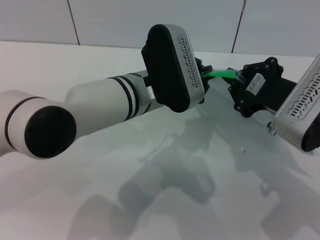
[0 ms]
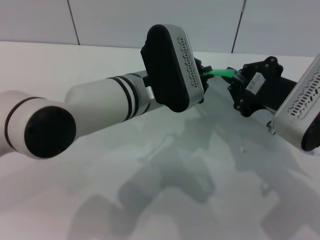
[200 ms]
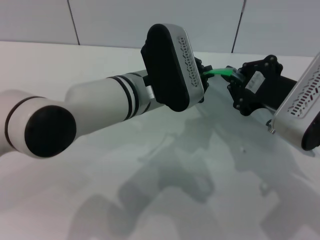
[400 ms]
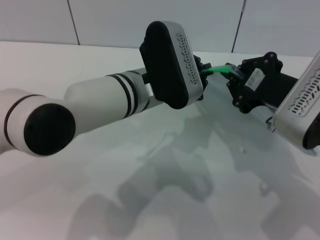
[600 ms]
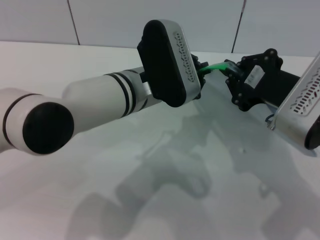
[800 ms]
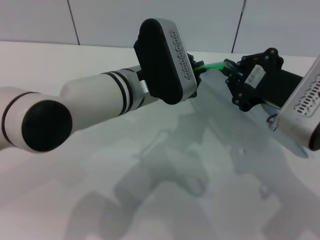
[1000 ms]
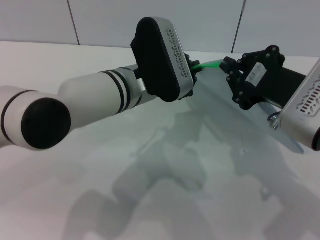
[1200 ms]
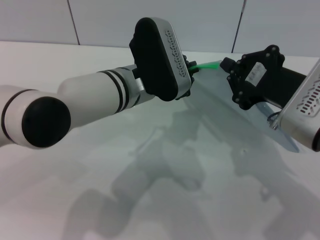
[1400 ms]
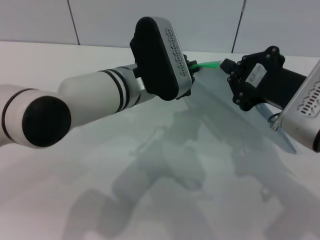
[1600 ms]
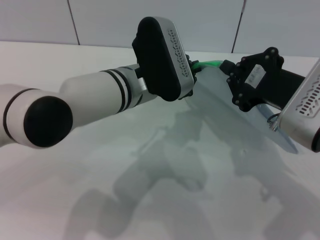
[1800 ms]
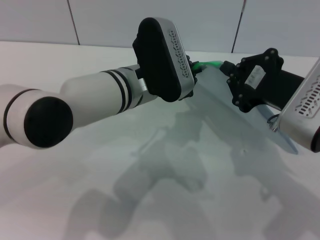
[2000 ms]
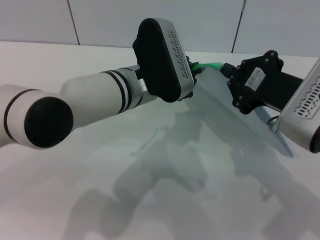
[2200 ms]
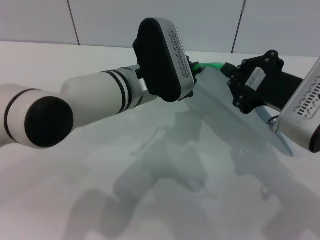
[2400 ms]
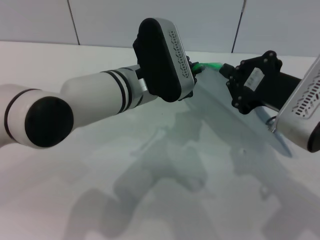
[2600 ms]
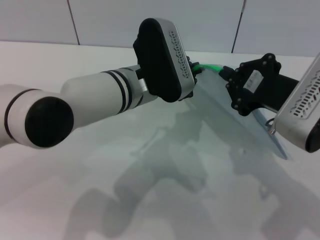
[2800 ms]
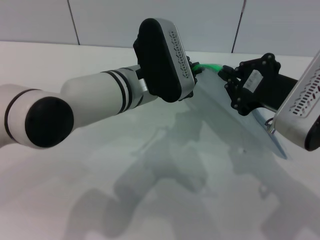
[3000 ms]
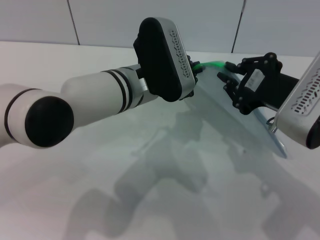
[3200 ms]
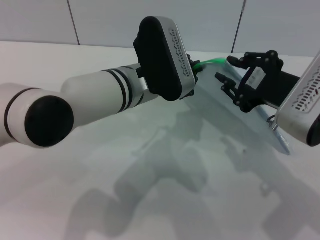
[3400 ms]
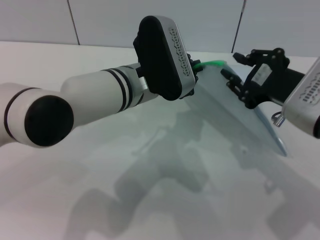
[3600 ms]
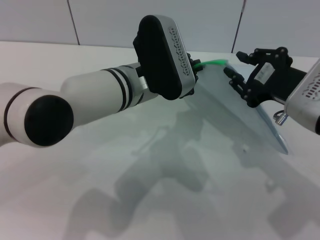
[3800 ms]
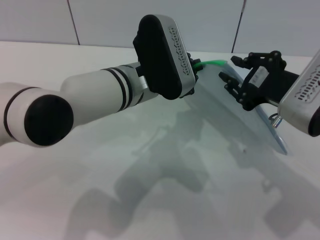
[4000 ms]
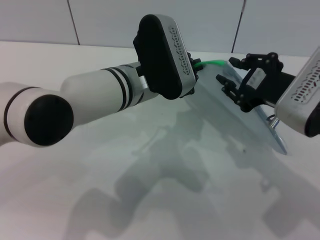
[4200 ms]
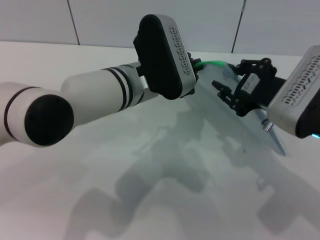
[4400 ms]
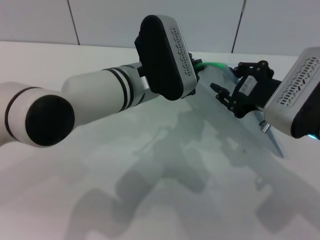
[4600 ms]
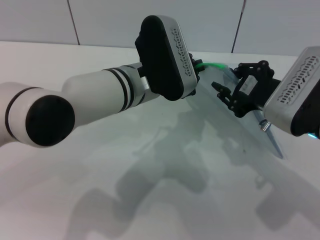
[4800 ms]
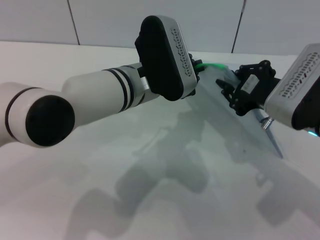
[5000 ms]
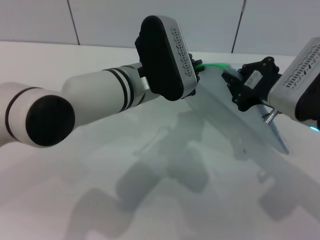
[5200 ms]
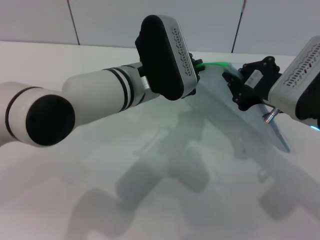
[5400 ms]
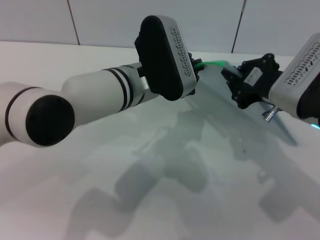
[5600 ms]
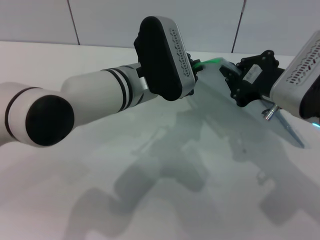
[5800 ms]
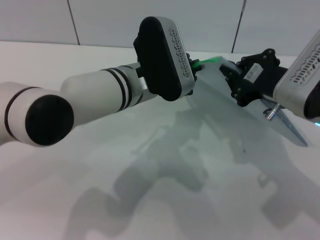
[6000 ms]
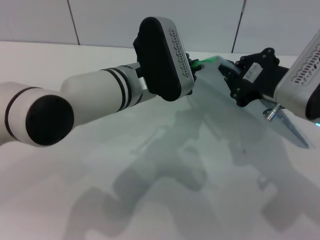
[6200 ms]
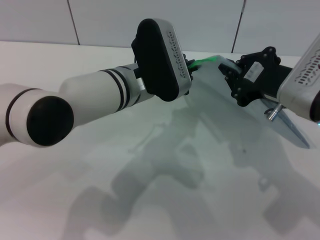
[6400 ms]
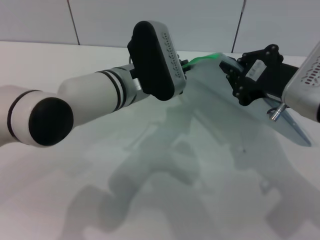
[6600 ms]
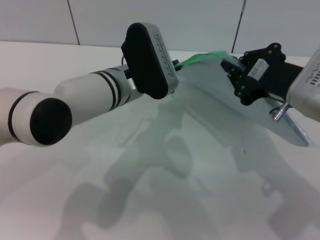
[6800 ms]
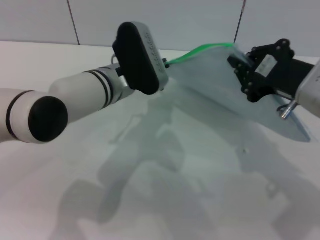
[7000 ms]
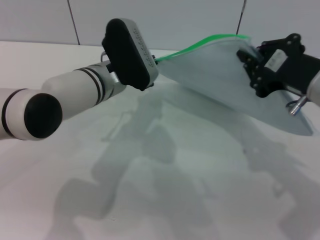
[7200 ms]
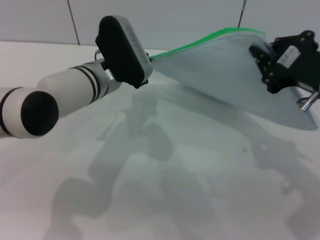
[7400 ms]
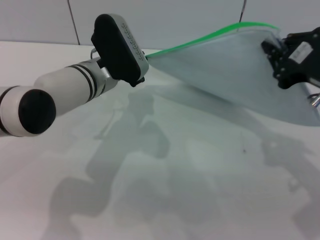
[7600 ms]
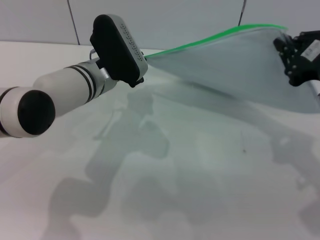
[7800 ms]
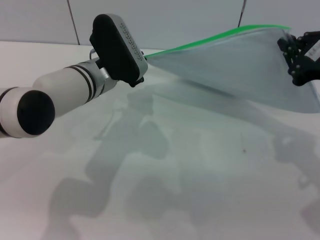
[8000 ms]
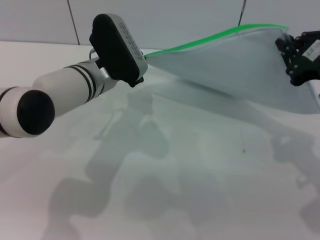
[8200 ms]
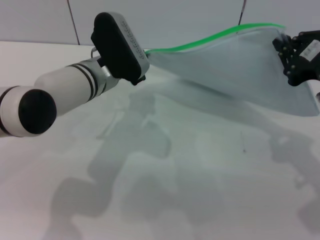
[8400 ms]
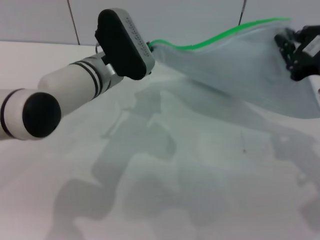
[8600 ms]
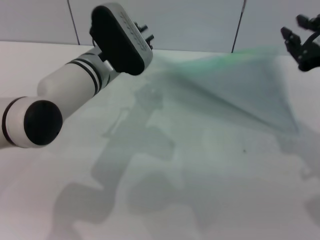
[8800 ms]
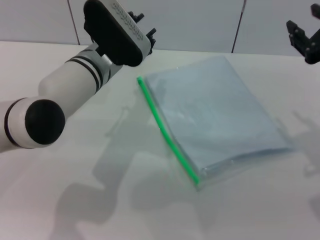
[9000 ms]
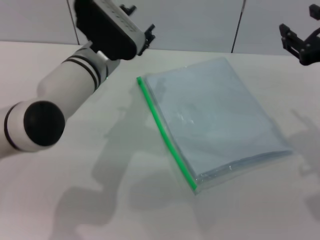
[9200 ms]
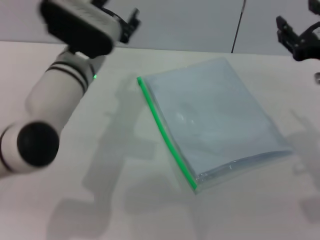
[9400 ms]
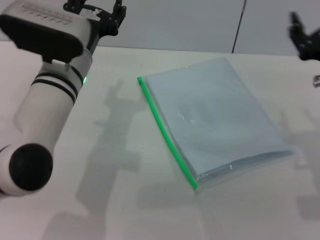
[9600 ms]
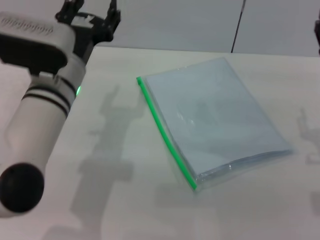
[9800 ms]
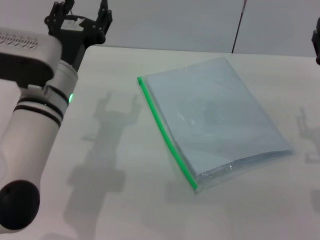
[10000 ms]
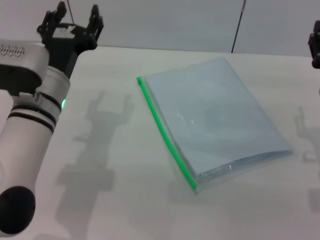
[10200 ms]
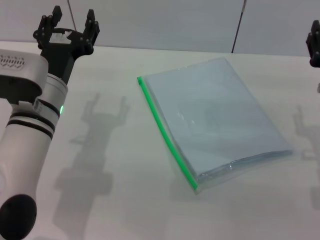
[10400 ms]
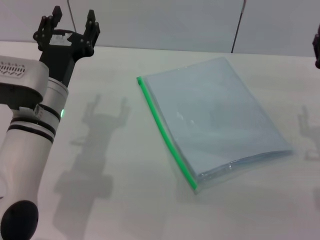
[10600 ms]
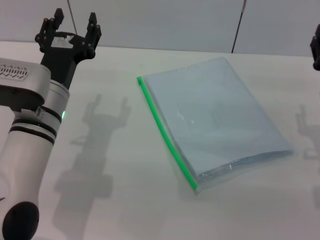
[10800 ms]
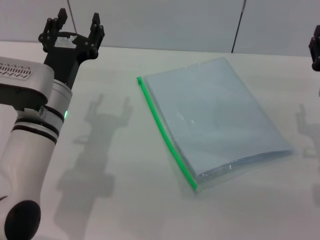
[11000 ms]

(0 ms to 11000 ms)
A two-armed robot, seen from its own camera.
Step, 0 ms - 8600 ms: Pulling up the zipper on the transparent plastic bag with the left gripper to close it.
Step, 8800 ms - 9800 ms: Place the transparent plastic bag.
0 ms - 1600 ms: The grippers stay close to where they were, moving slightly.
1600 ms - 3200 ms: Both grippers stay put.
3200 ms - 4800 ms: The right gripper opens.
4800 ms - 6200 ms: The right gripper closes its fingers.
6200 ms - 7800 ms: The left gripper shifts about 5 cm to the left; the right gripper moves to the right, about 5 cm.
7800 ms - 9400 ms: The right gripper opens its fingers. The left gripper opens.
9400 ms - 11000 ms: The left gripper goes about 5 cm backward, while the right gripper shifts some 10 cm downward.

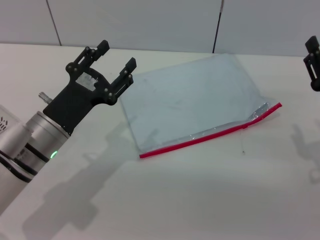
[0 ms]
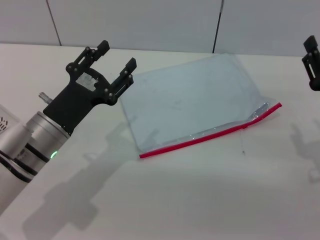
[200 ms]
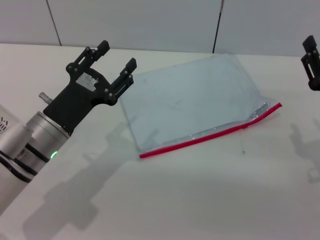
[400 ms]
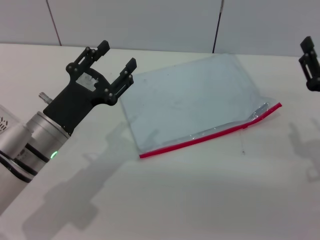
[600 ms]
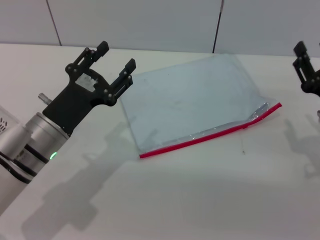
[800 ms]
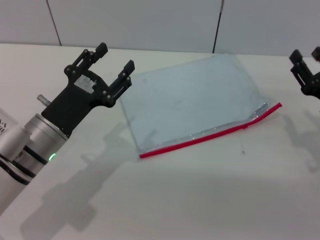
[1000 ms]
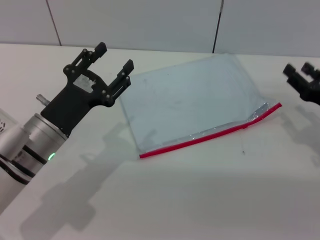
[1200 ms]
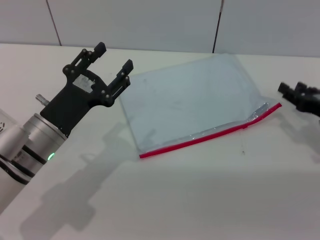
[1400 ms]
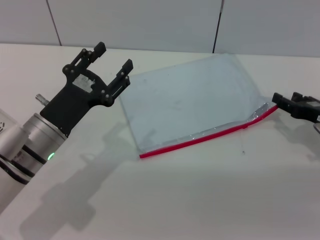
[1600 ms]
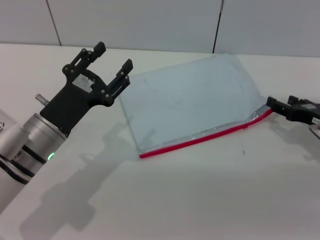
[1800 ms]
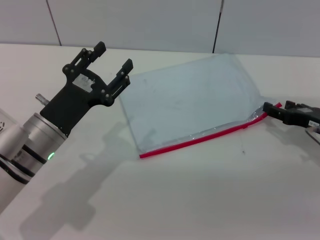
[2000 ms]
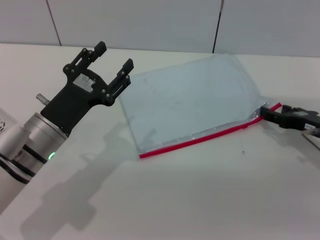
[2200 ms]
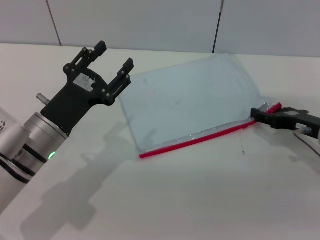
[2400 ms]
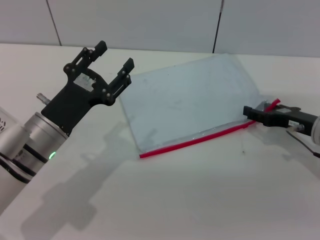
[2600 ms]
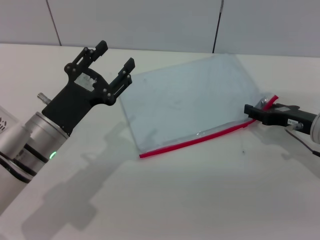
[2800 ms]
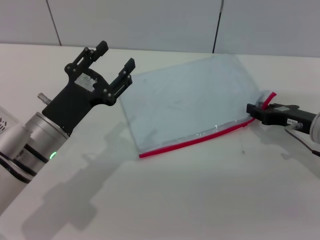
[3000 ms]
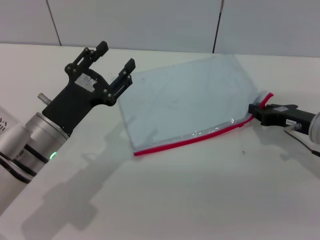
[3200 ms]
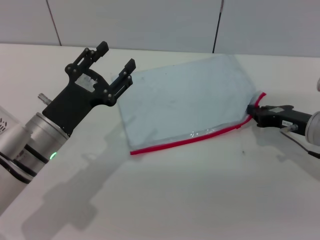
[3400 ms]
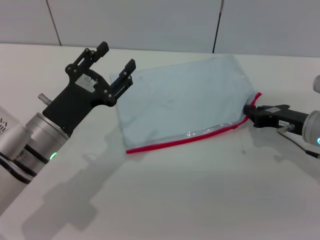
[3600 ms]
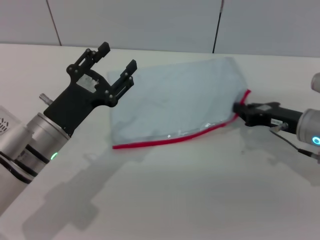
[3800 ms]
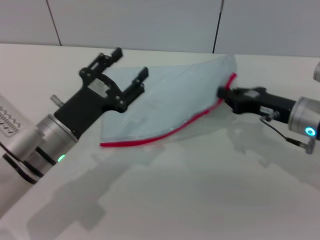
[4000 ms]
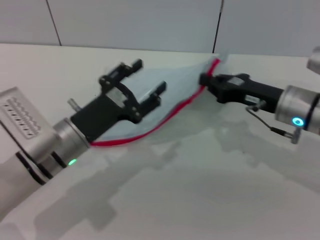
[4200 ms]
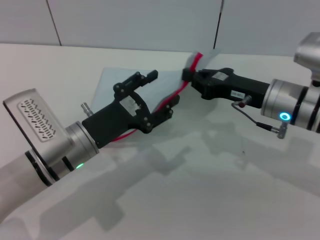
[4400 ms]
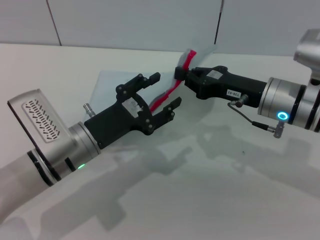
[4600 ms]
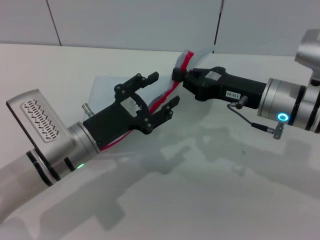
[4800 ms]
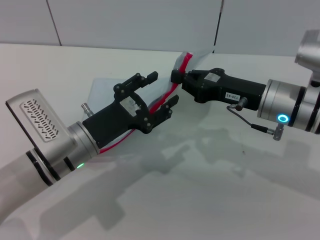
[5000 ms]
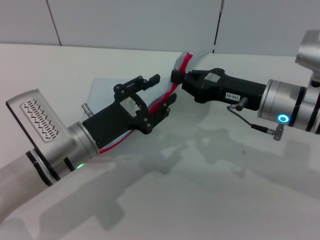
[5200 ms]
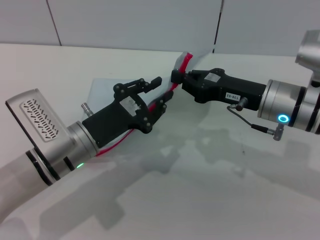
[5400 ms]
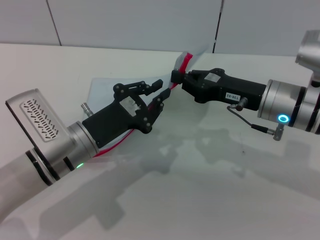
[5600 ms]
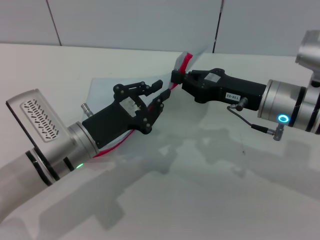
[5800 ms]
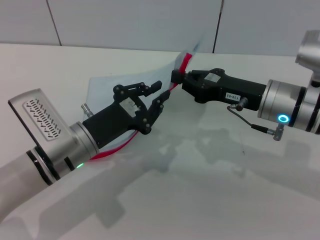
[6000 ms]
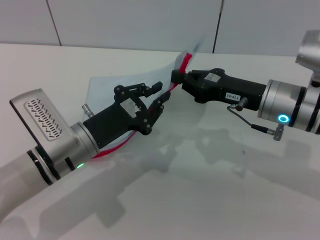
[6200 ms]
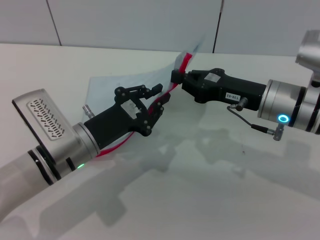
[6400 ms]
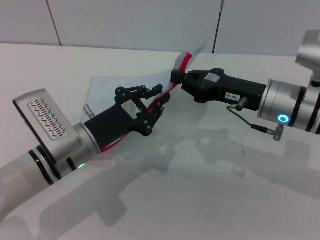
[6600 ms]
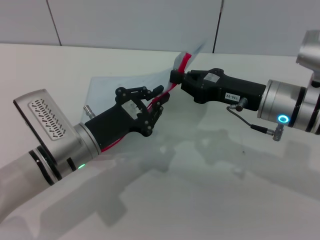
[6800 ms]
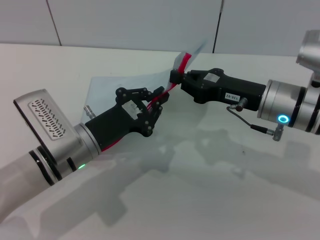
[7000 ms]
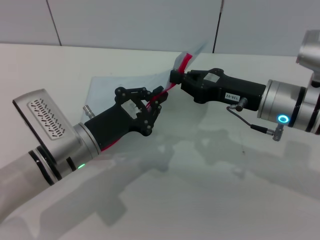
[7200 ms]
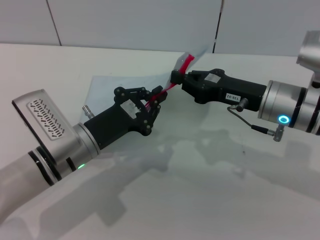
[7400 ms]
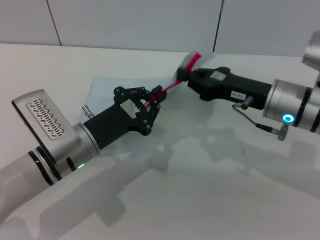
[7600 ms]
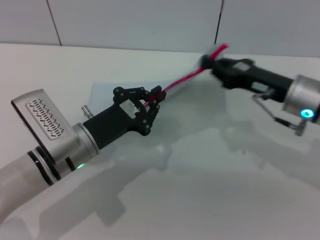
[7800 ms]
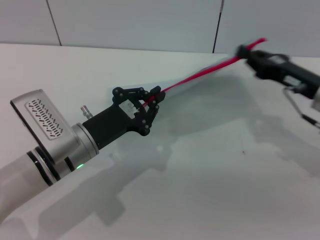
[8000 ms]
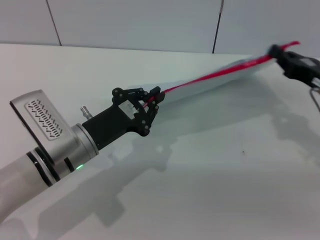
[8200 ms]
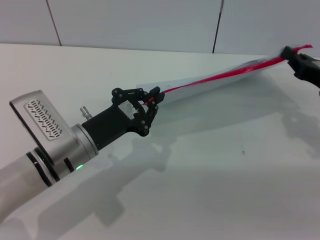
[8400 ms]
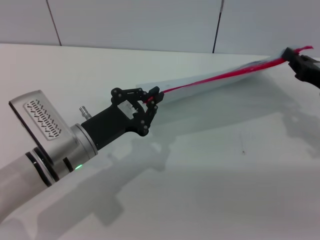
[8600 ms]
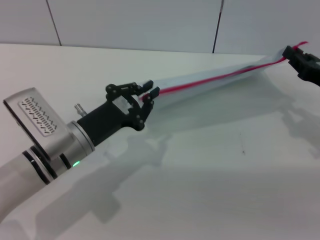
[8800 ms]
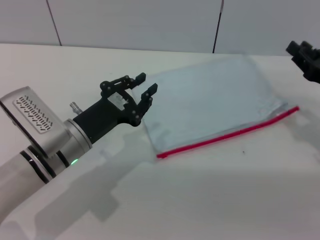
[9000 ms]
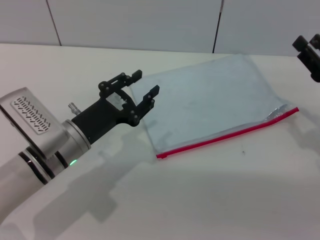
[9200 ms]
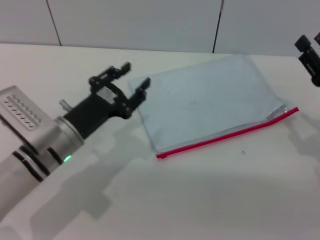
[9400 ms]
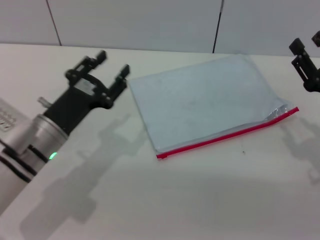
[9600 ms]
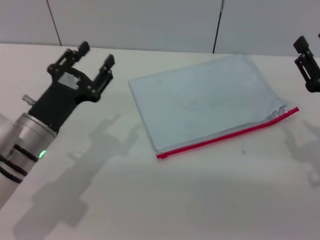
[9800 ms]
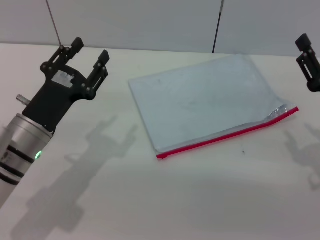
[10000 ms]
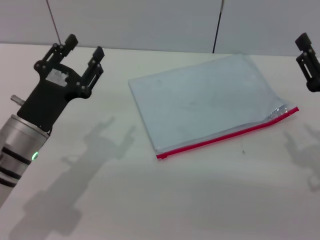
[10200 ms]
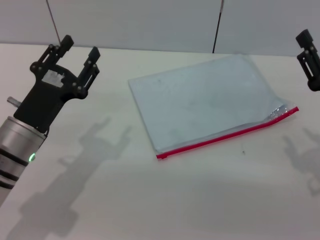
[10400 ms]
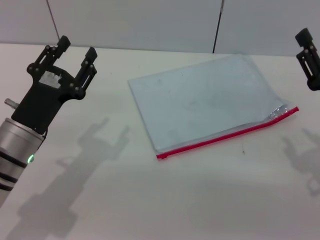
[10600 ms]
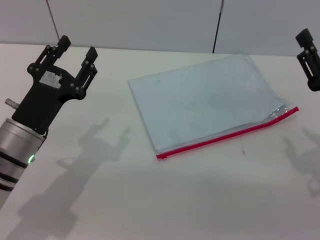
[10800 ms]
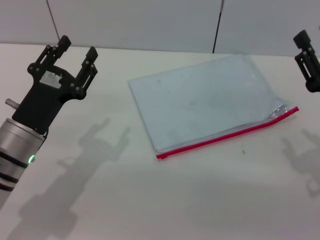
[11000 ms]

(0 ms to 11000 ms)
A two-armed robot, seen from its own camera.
Step, 0 ms - 4200 ms: Pick up the transparent plastic bag with the right gripper.
Step, 9000 ms - 9400 ms: Place the transparent plastic bag.
0 ms - 1600 ms: The right gripper travels forward by roughly 5 cm.
1600 ms - 3200 ms: The grippers move only a little.
3200 ms - 4800 ms: The right gripper is displaced to the left and upward by approximately 10 cm, and closes up.
4800 ms - 6200 ms: The left gripper closes its fingers.
6200 ms - 7800 ms: The grippers make only small movements.
7800 ms - 9400 ms: The right gripper is displaced to the right and backward by about 10 cm, and opens; the left gripper opens its fingers.
9400 ms - 11000 ms: The grippers make only small movements.
